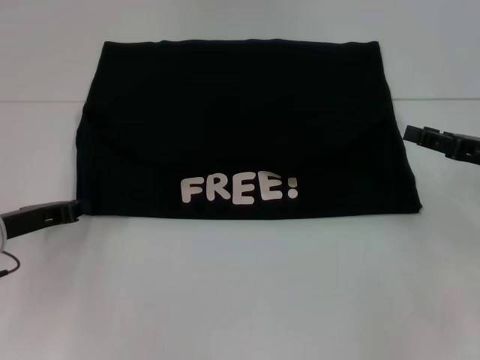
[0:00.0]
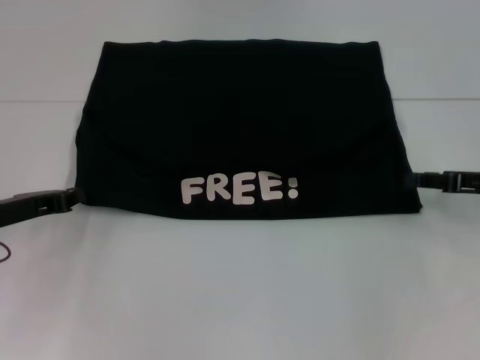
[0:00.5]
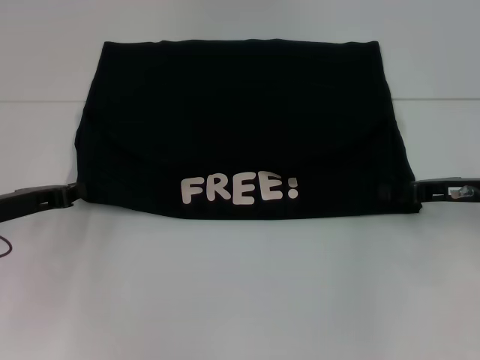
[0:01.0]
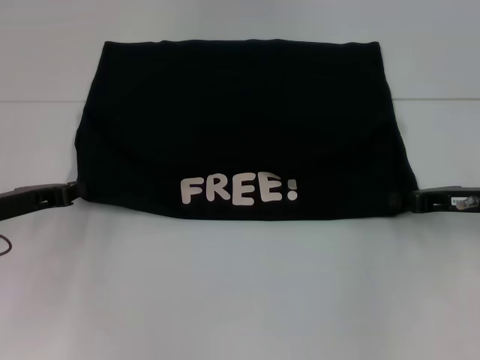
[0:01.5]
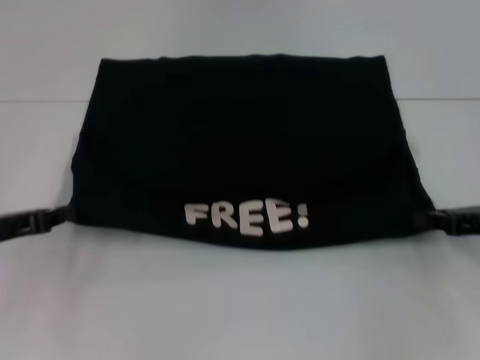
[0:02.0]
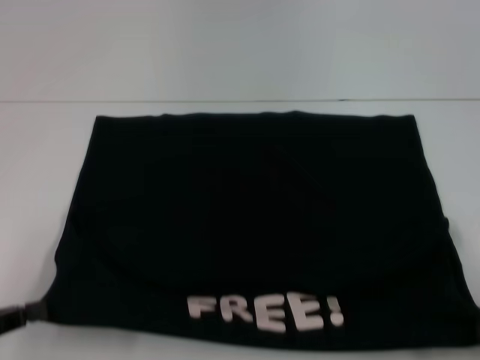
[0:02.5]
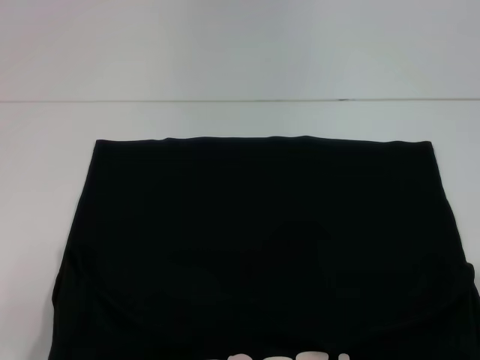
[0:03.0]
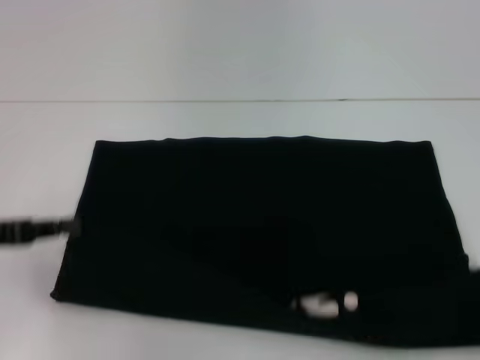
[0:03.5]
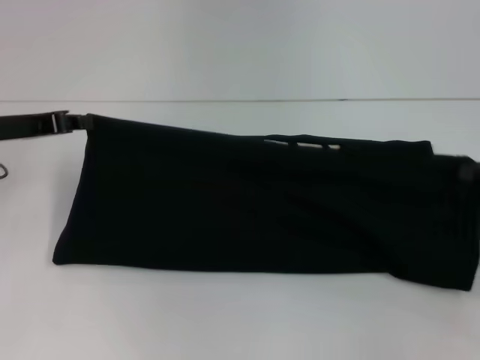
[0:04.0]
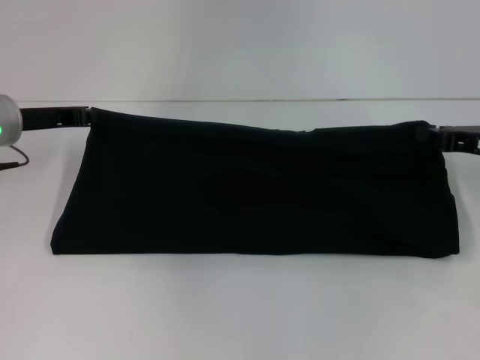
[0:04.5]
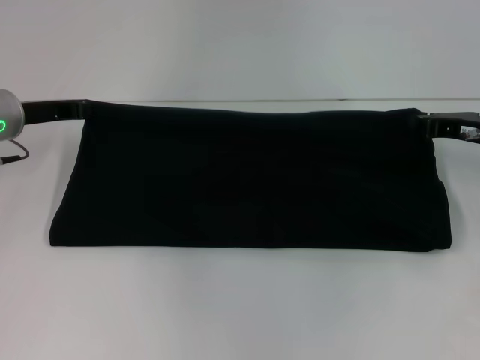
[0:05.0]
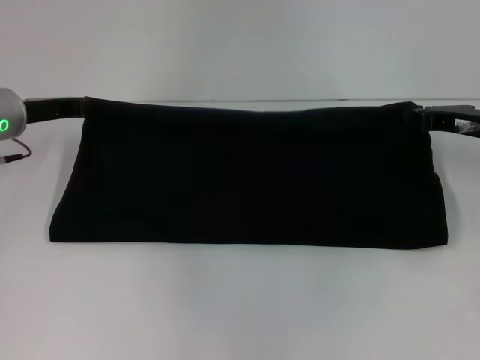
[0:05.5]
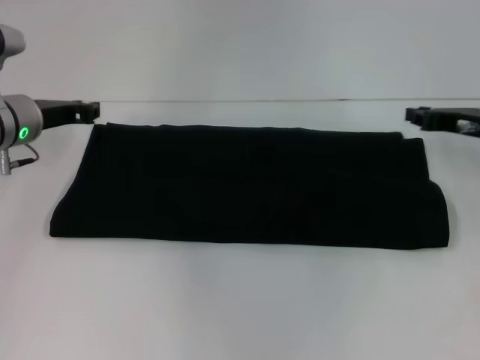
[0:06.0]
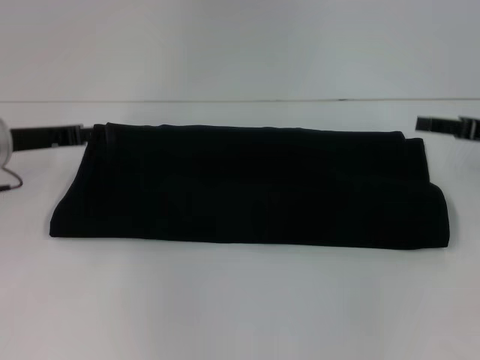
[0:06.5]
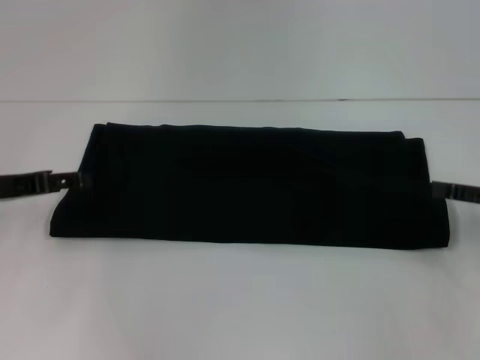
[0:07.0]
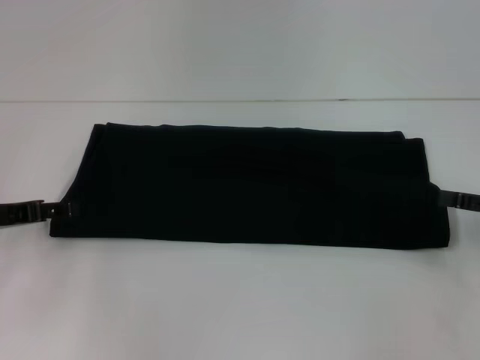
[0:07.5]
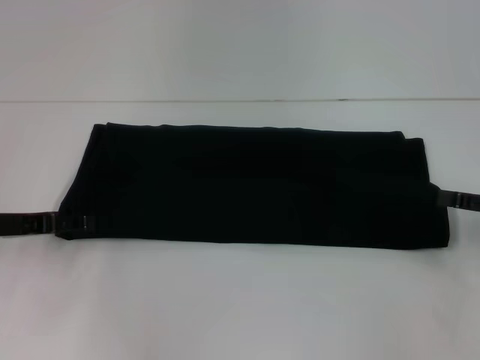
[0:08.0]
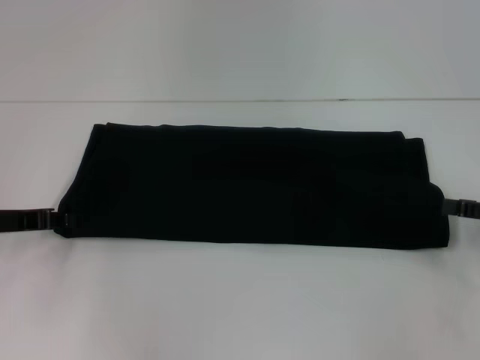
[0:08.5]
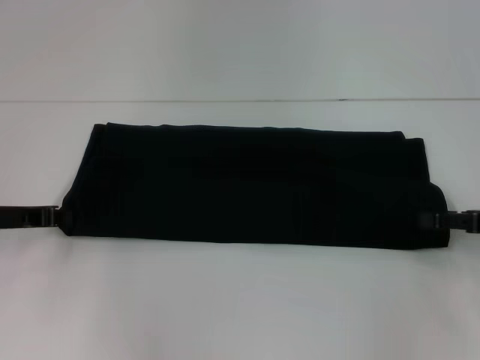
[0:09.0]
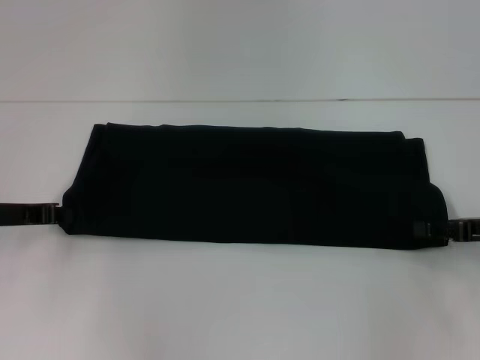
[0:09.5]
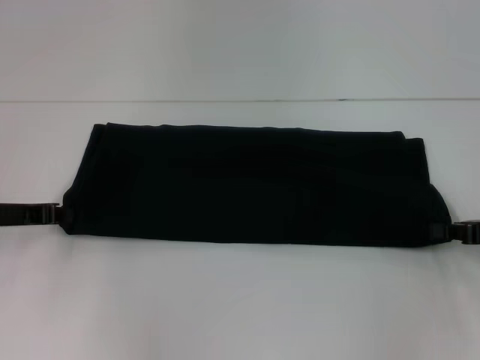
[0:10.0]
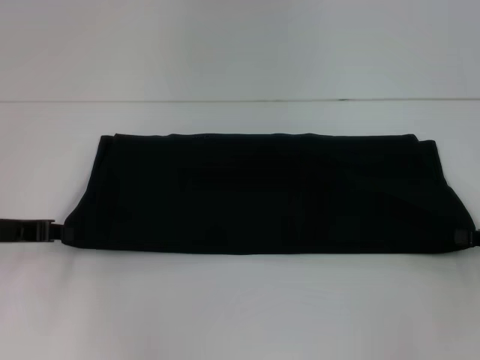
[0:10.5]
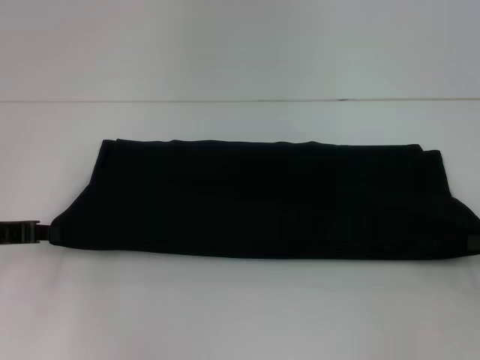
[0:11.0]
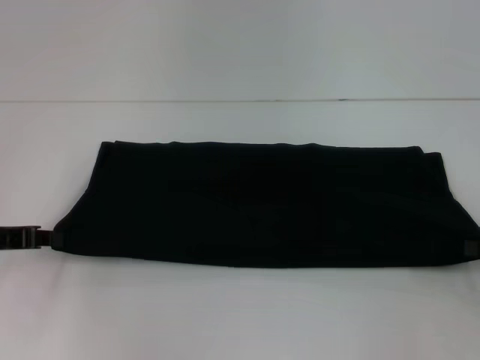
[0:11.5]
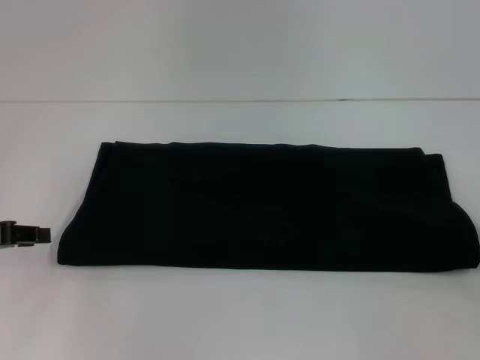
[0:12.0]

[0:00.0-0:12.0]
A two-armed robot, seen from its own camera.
Step, 0.0 to 2.5 s: Pull the clothes with your left hand.
Step, 0.0 to 2.5 s: Pull the clothes with your right hand.
Step, 3.0 to 6.0 s: Fold the clothes with your right hand.
0.0 to 2.0 s: The right gripper closes up, while the left gripper ends up about 5 cm from where it was.
2.0 to 4.0 s: The left gripper moves forward and upward, approximately 10 cm. The right gripper goes backward and returns, about 20 cm each way.
4.0 to 6.0 s: The right gripper moves forward and to the left, approximately 15 cm, while the left gripper ends up some 5 cm from where it was.
6.0 to 8.0 s: The right gripper heads backward and to the right, covering approximately 15 cm, and opens; the left gripper is displaced backward and to the left by about 10 cm, and opens up.
8.0 to 10.0 s: The right gripper closes its fingers; the left gripper closes.
10.0 to 12.0 s: The left gripper moves some 5 cm, while the right gripper shifts approximately 5 cm to the right.

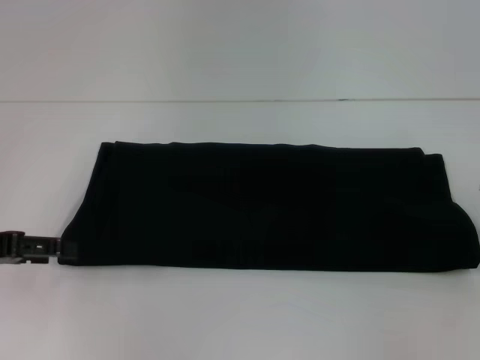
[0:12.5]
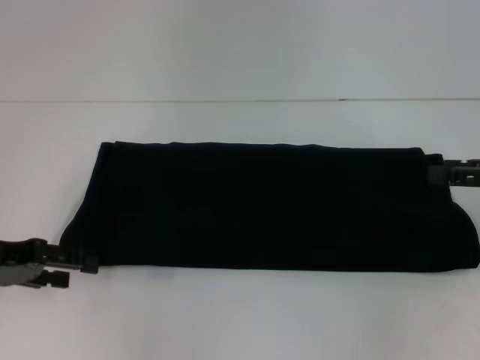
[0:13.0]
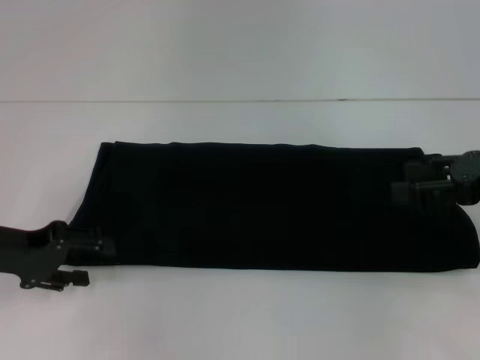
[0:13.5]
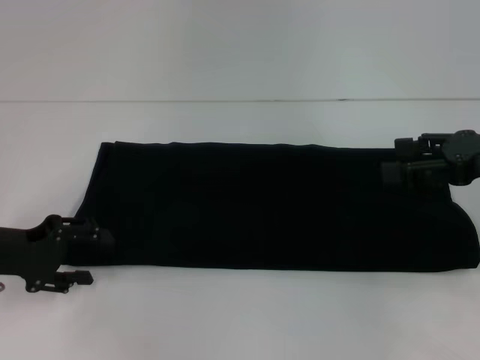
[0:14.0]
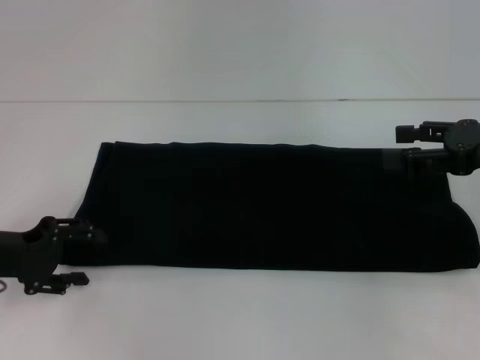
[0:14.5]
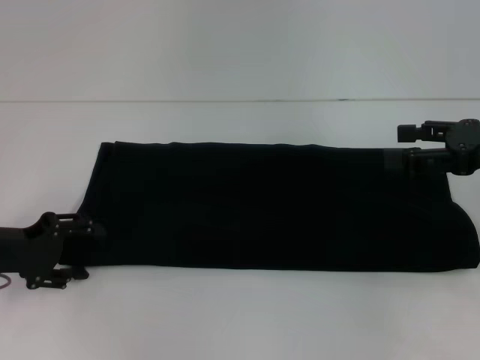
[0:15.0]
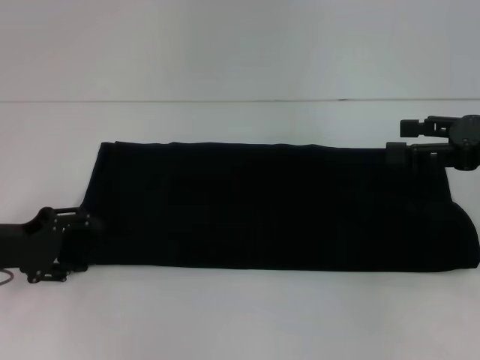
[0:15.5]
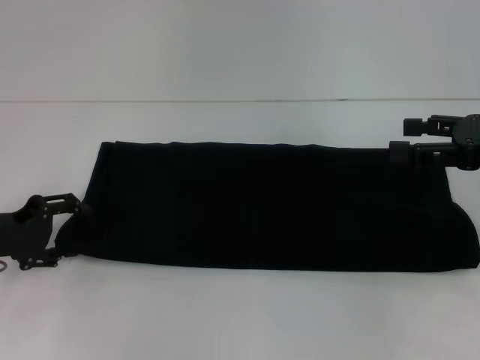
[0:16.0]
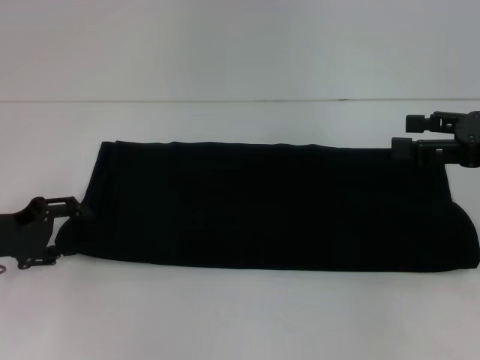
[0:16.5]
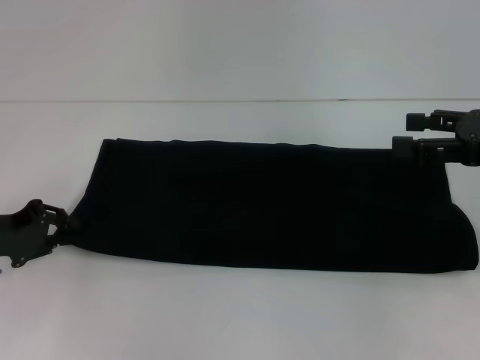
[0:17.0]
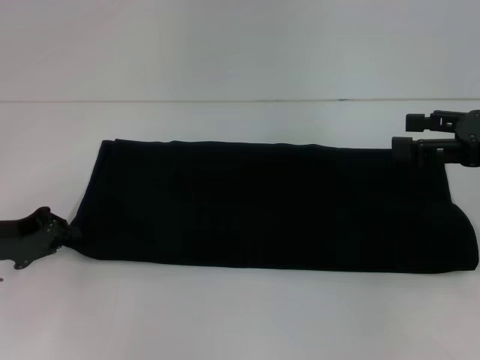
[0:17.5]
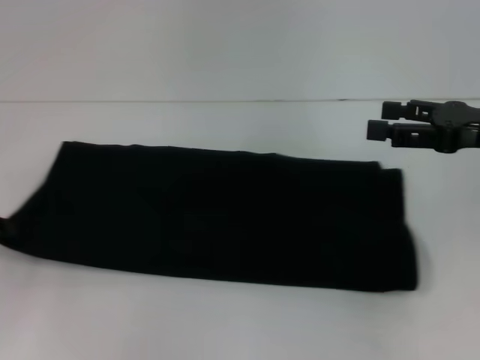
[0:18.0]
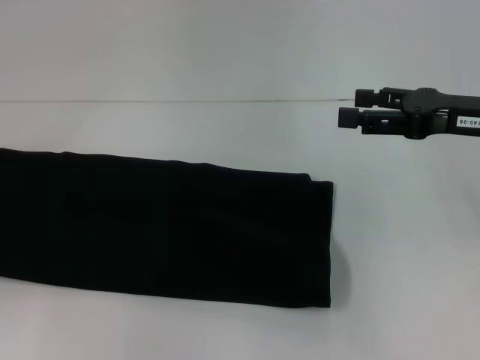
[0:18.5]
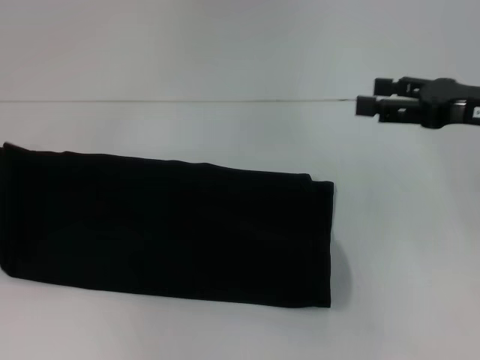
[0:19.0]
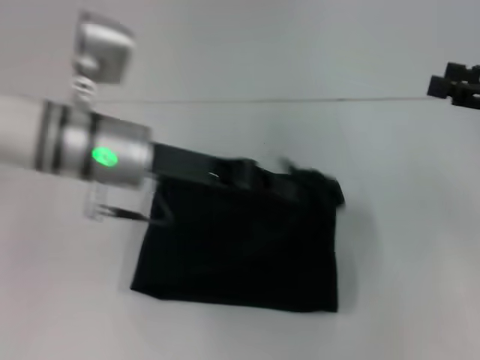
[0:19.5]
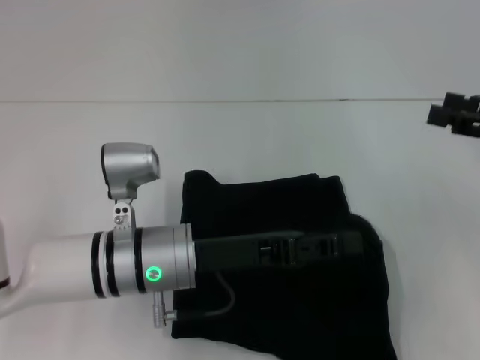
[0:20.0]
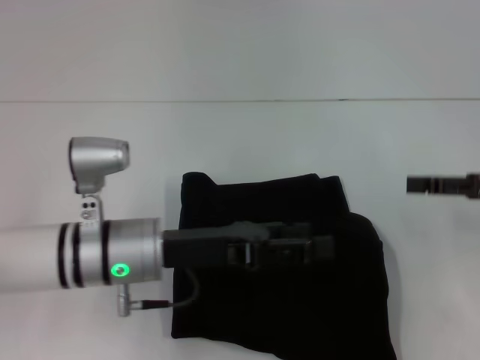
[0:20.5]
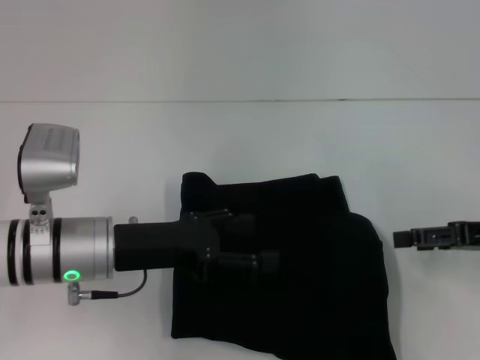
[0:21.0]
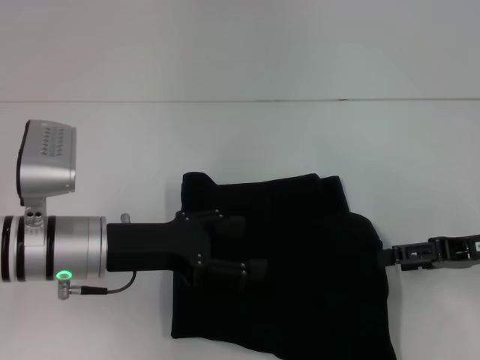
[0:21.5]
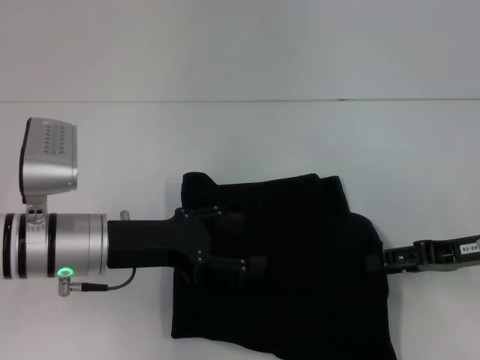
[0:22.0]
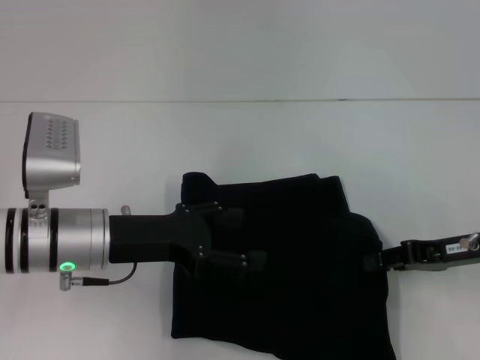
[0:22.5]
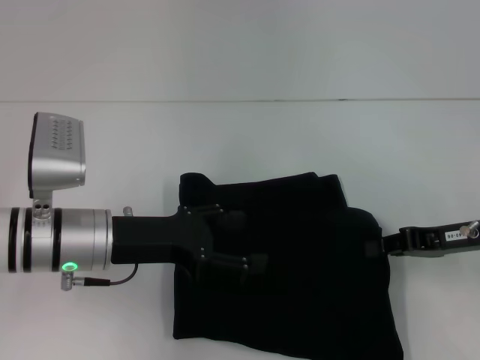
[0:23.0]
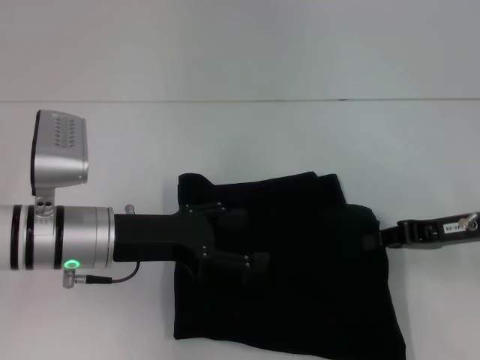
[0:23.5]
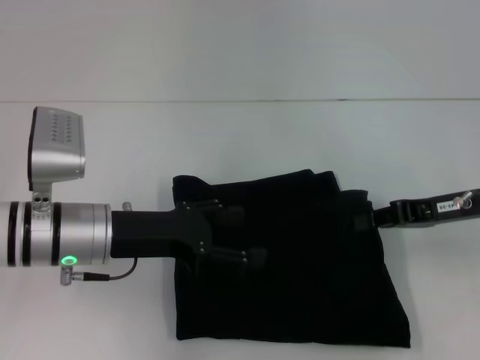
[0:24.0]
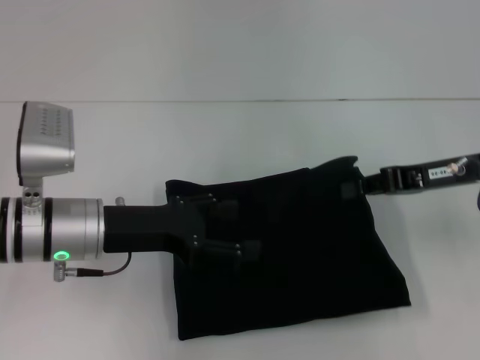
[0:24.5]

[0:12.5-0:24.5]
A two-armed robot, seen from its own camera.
Step, 12.5 to 20.0 s: Fold the clothes with your left hand.
12.5 to 14.5 s: The right gripper is displaced to the left and forward by approximately 10 cm; the left gripper moves downward, about 5 cm.
14.5 to 16.5 s: The grippers stay close to where they were, moving slightly.
16.5 to 18.5 s: The left gripper shifts some 10 cm to the left, and closes up. The right gripper ends up roughly 5 cm from where it was.
18.5 to 20.5 s: The left gripper travels to the right by approximately 30 cm, and opens its fingers. Meanwhile the right gripper moves to the right, approximately 5 cm.
20.5 to 22.5 s: The right gripper goes about 10 cm downward and to the left, and closes. The left gripper changes place by roughly 5 cm, and opens up.
22.5 to 24.5 s: The right gripper goes about 5 cm upward.

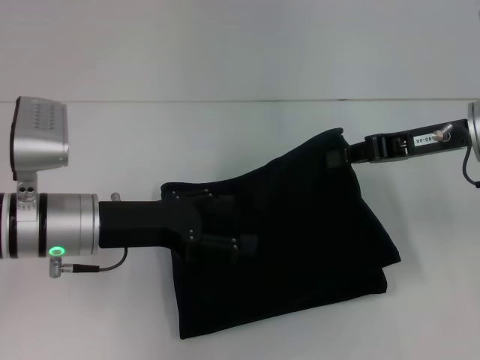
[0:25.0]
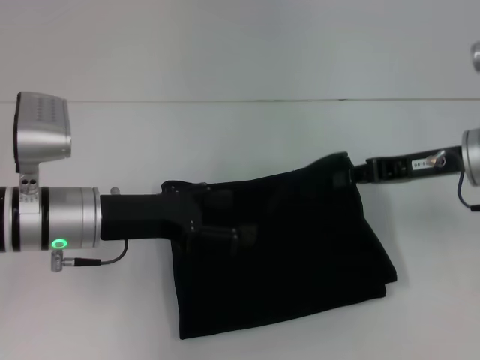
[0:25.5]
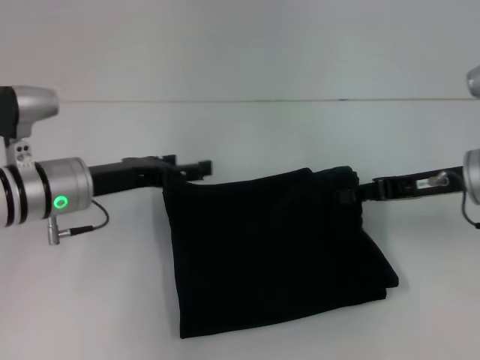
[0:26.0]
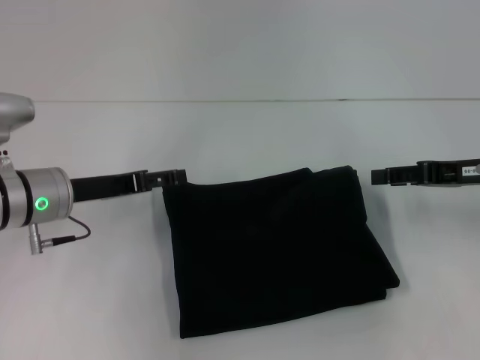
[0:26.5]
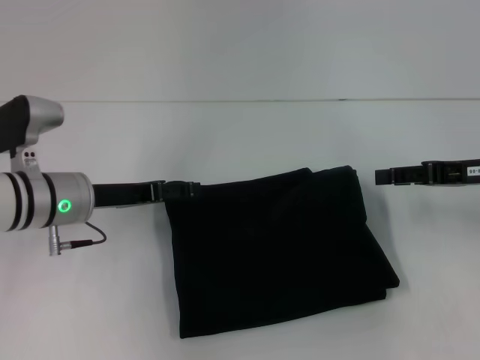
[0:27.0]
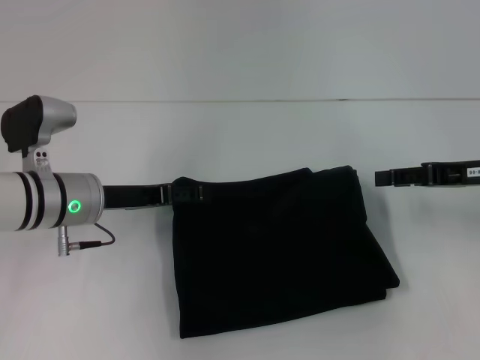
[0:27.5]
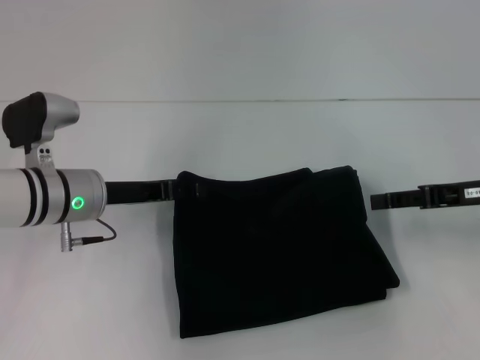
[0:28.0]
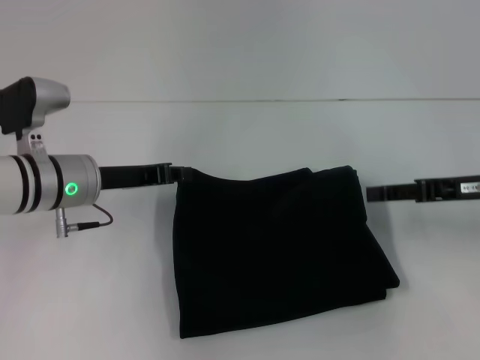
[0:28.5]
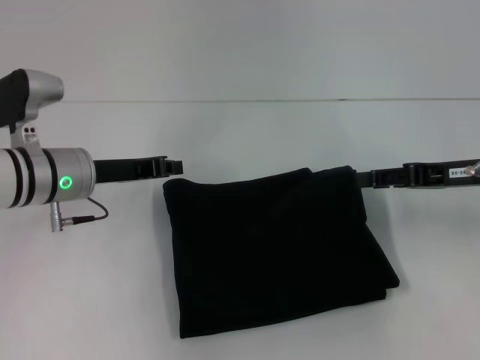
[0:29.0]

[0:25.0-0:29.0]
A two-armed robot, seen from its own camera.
25.0 to 27.0 s: The right gripper goes some 5 cm to the right, and opens up. Meanwhile the left gripper shifts by some 5 cm.
27.0 to 29.0 s: The left gripper closes.
